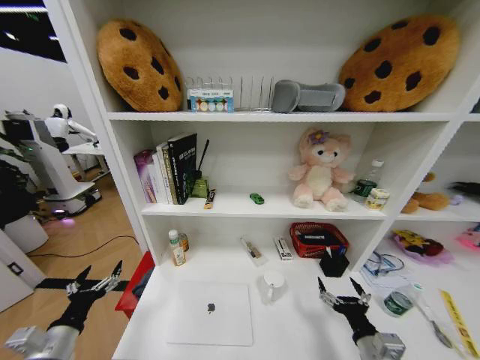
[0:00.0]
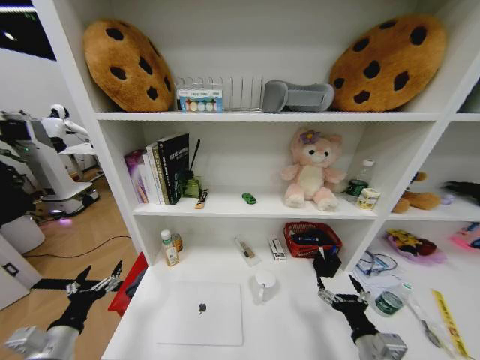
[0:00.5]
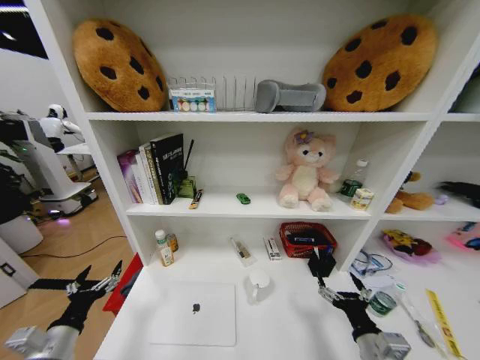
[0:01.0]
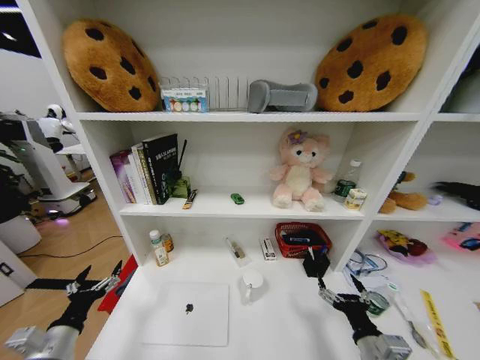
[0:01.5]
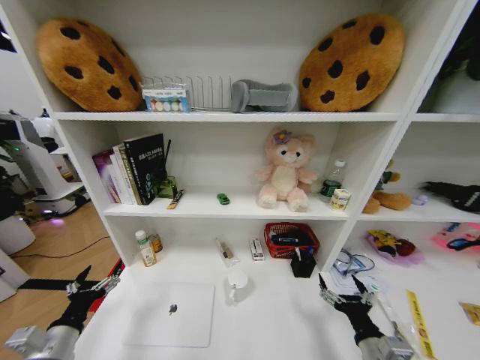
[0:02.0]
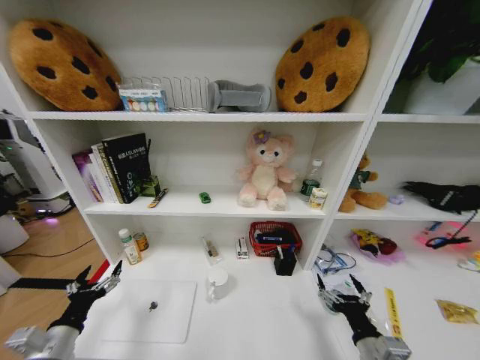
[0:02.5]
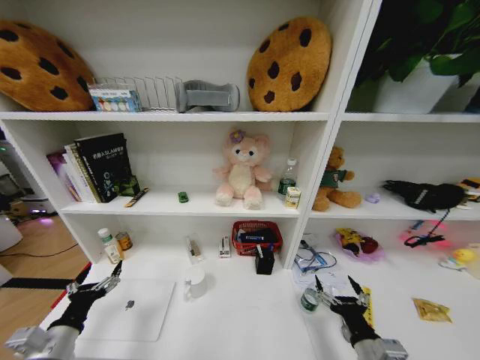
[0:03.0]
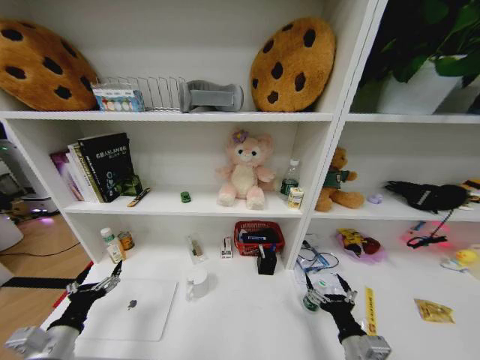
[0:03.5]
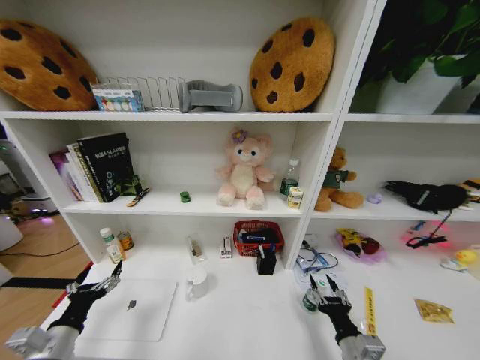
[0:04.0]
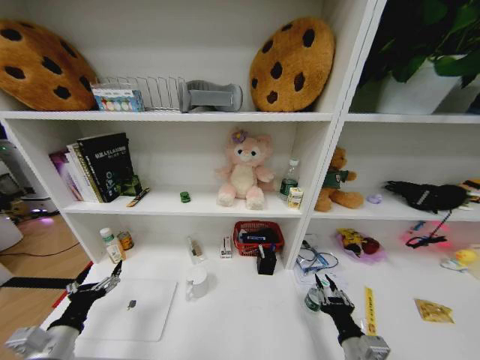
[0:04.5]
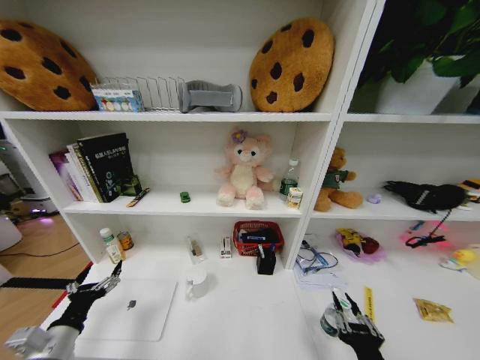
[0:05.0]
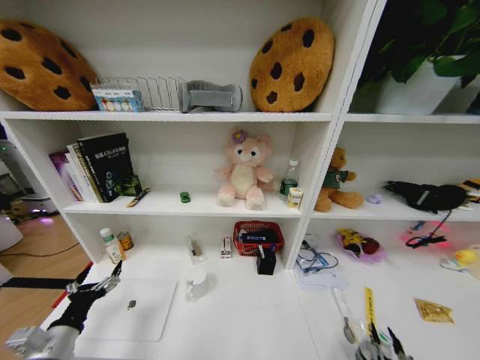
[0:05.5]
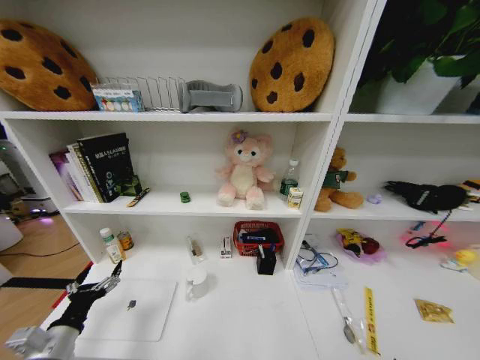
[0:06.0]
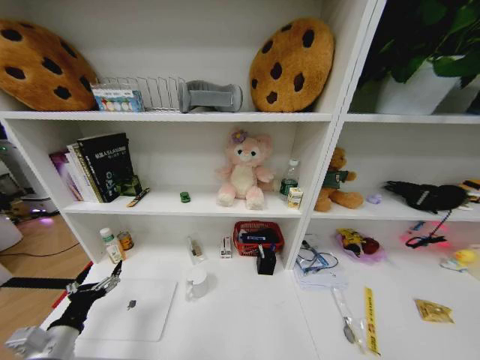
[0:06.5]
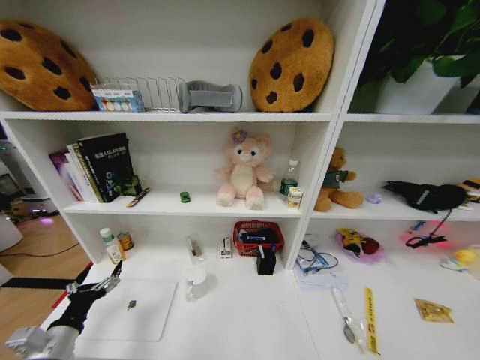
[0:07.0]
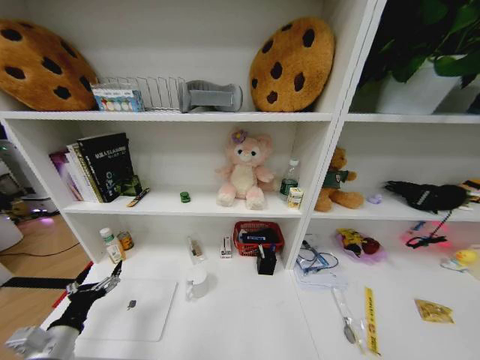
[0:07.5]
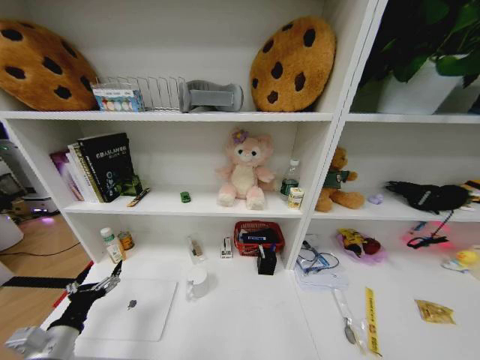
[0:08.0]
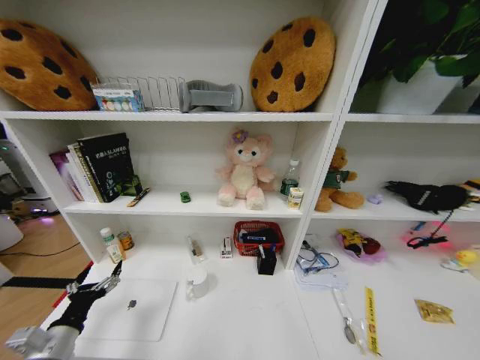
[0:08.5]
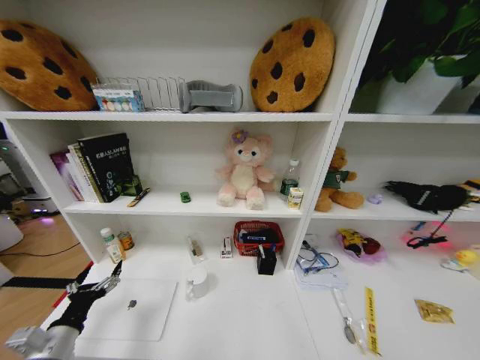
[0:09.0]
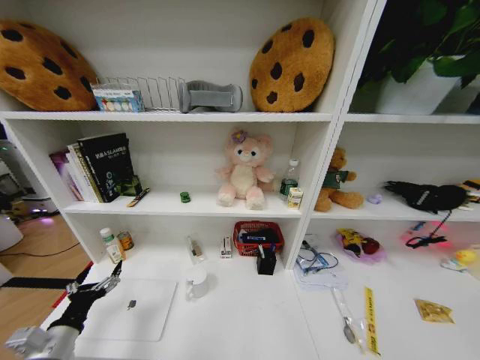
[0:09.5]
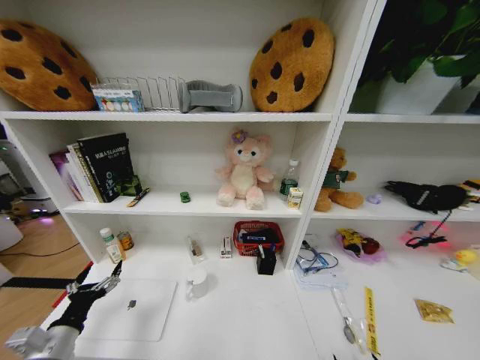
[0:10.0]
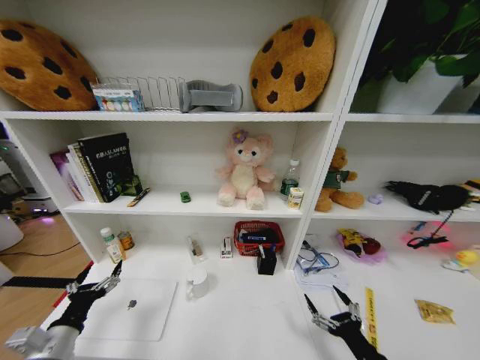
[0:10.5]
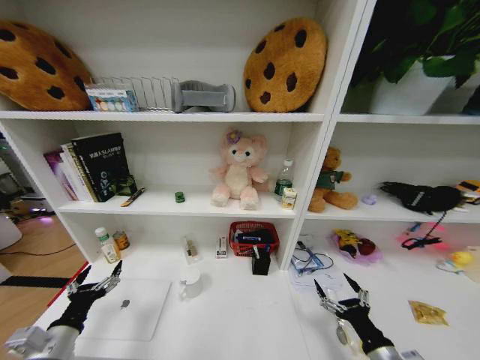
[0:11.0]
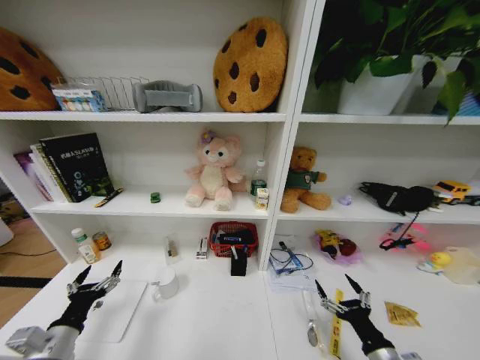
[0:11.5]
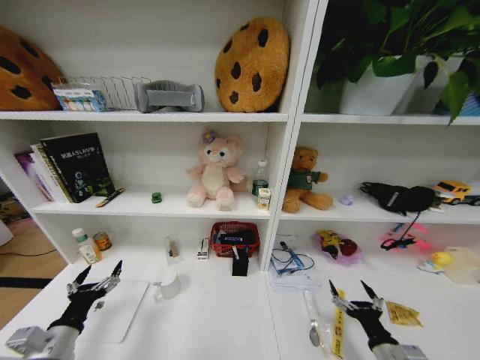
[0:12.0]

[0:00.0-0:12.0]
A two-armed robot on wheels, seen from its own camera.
Task of the whole recording: Organize the objects on the table.
0:02.0 to 0:04.0: The right gripper closes.
0:04.0 to 0:06.0: The right gripper shifts roughly 15 cm backward.
0:06.0 to 0:08.0: The right gripper travels downward by approximately 35 cm.
0:08.0 to 0:10.0: The right gripper is displaced upward by about 25 cm, and opens its fingers.
0:10.0 to 0:12.0: The right gripper travels forward by roughly 20 cm.

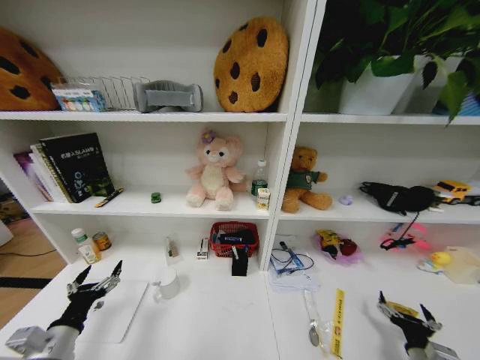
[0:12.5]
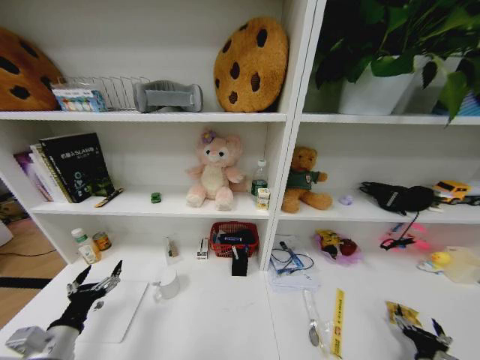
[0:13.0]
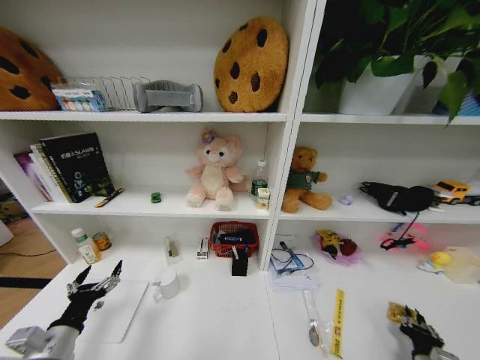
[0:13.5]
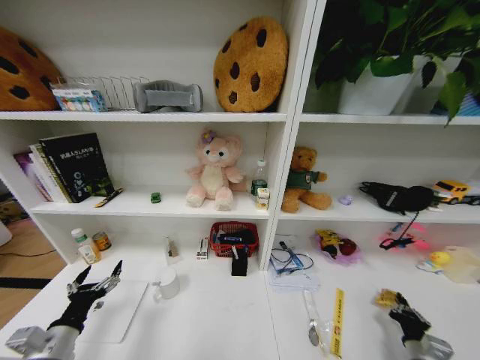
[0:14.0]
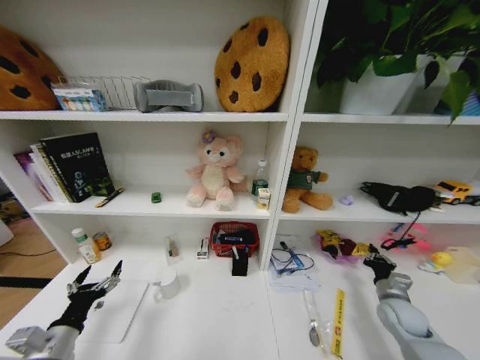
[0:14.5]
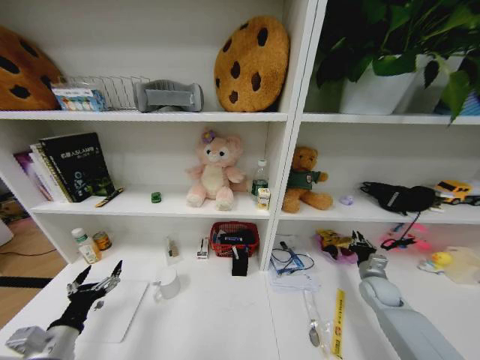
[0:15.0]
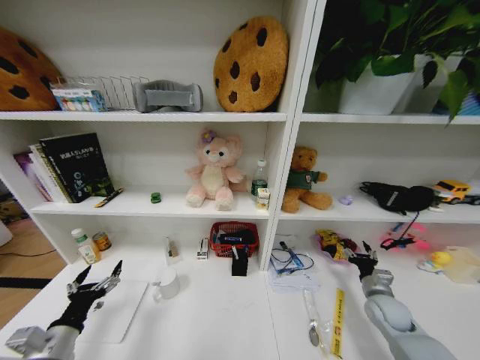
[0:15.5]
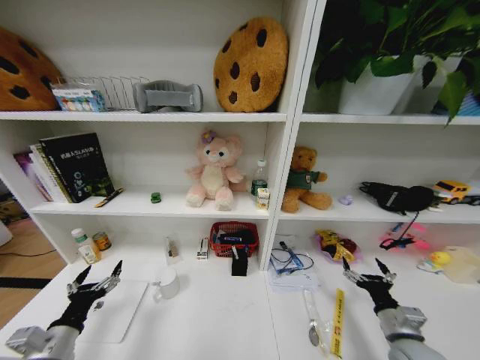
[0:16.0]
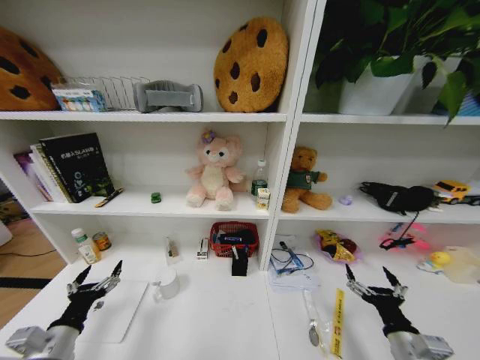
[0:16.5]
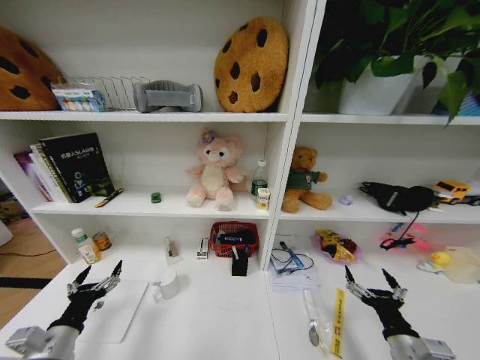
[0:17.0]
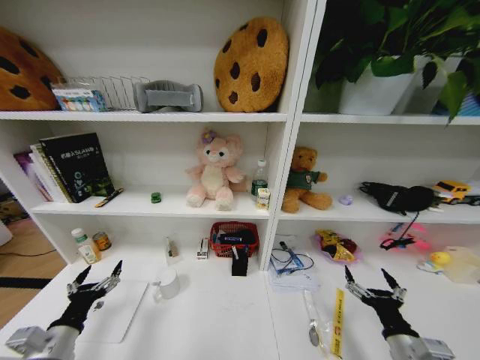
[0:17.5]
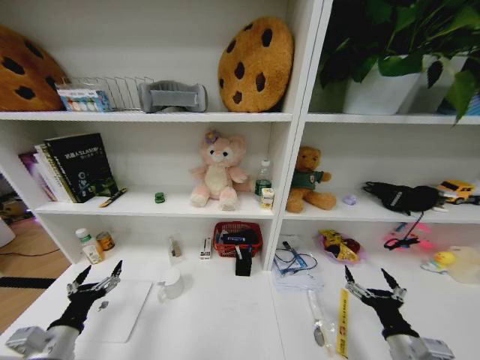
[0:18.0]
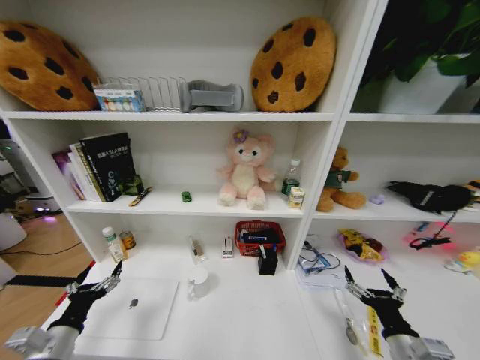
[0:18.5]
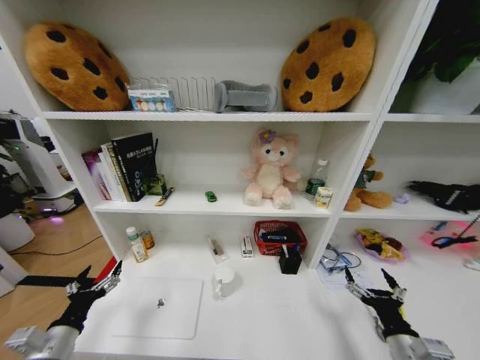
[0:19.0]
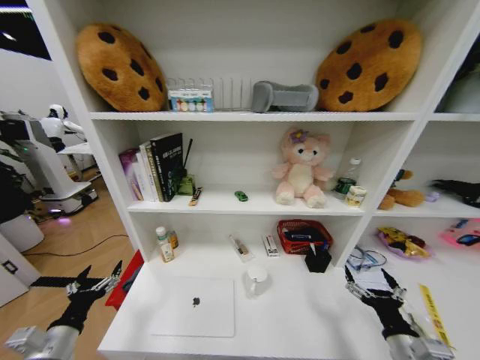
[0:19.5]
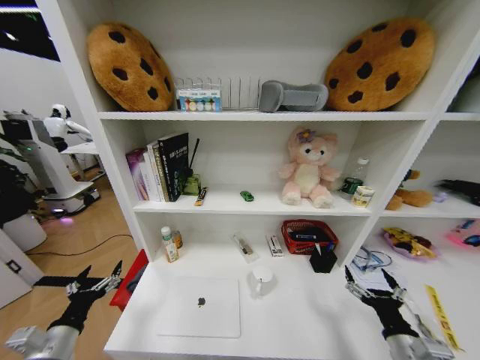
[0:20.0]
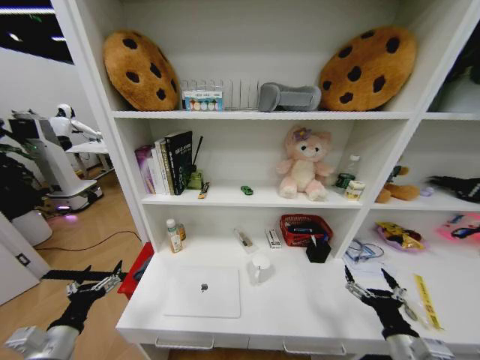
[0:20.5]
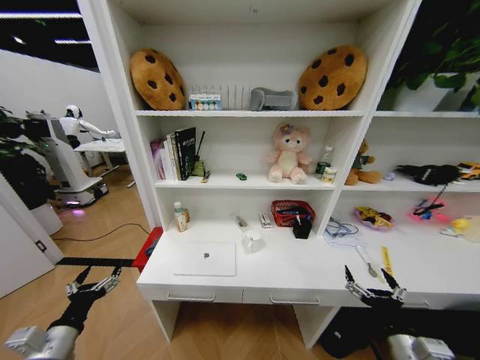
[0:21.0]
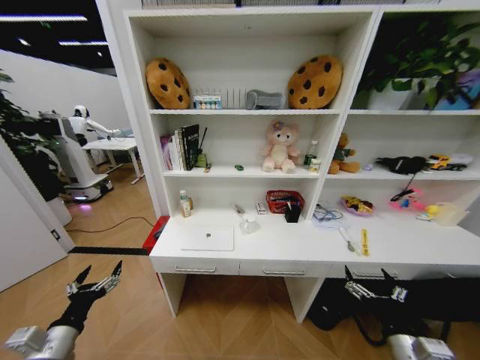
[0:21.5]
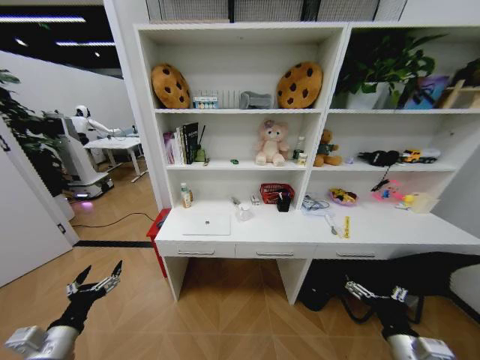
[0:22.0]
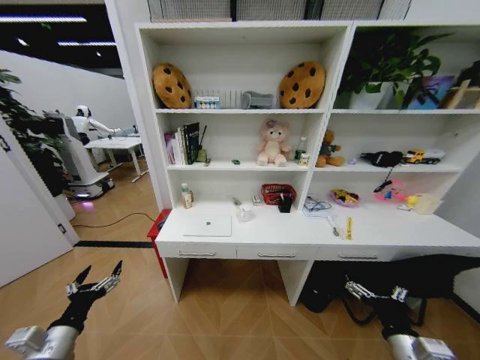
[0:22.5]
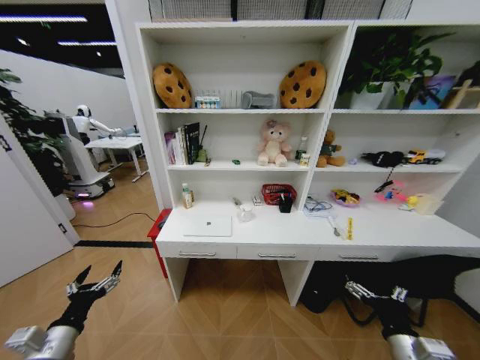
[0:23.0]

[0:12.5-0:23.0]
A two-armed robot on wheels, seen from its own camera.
Task of the whole recording: Organize the objects on the table.
0:12.5 to 0:14.5: The right gripper is displaced forward by about 15 cm, and closes its fingers.
0:14.5 to 0:16.5: The right gripper shifts approximately 20 cm backward and to the left, and opens its fingers.

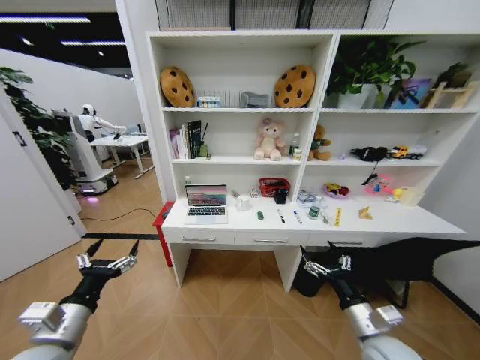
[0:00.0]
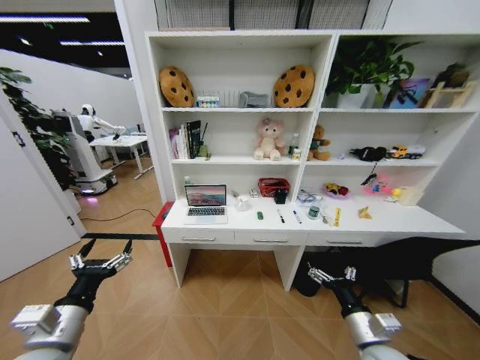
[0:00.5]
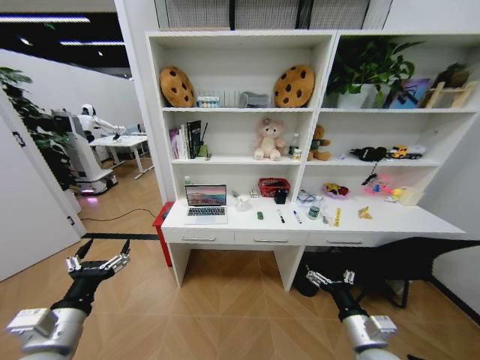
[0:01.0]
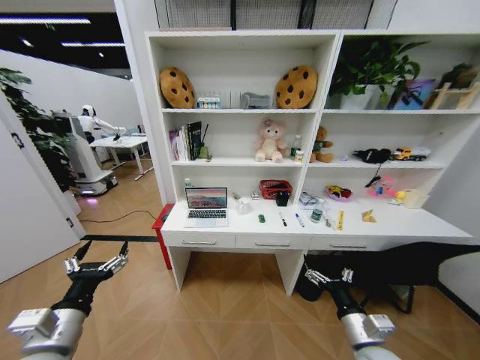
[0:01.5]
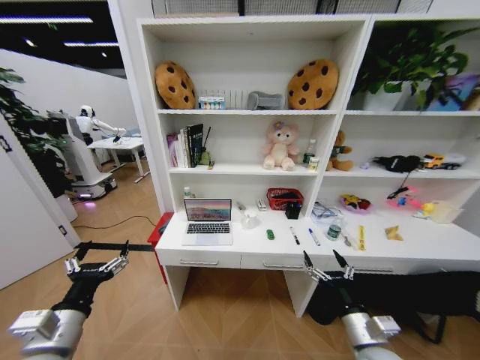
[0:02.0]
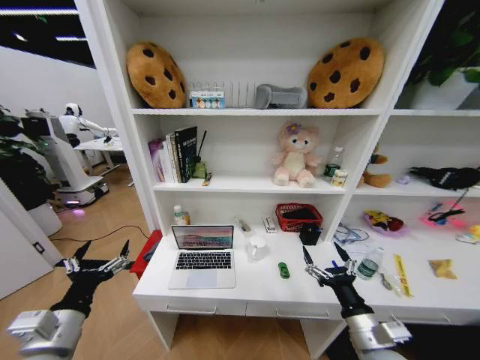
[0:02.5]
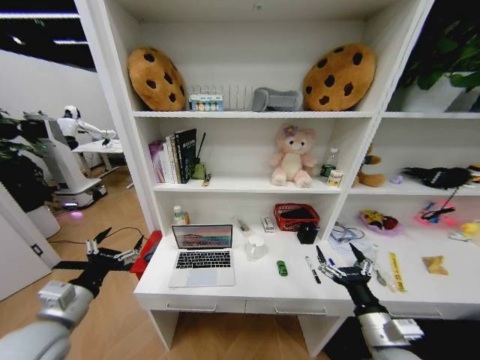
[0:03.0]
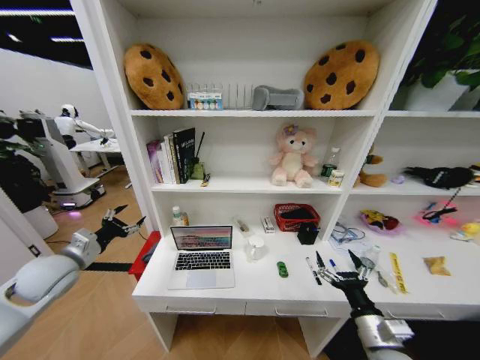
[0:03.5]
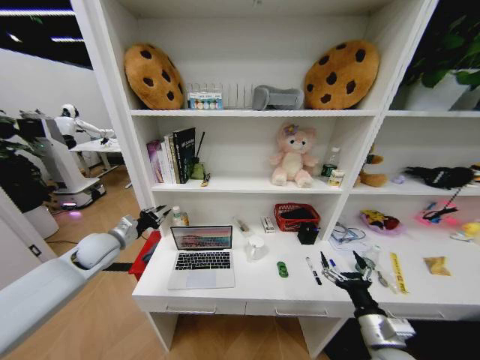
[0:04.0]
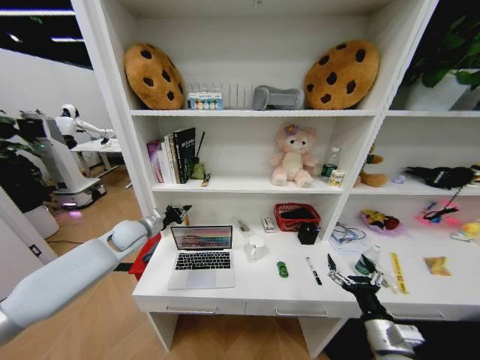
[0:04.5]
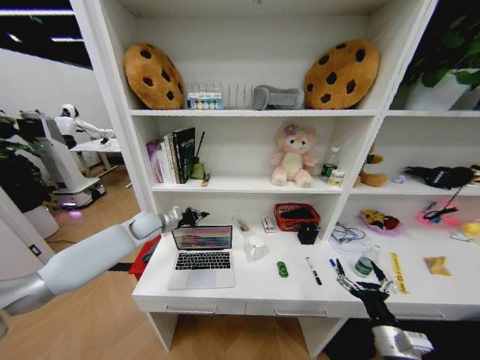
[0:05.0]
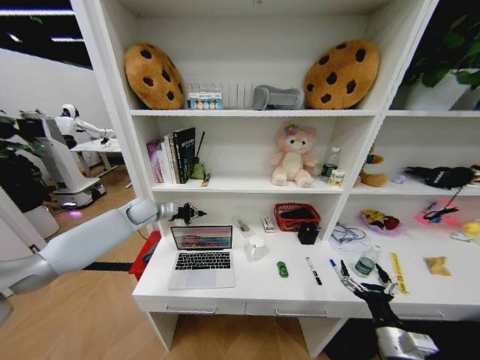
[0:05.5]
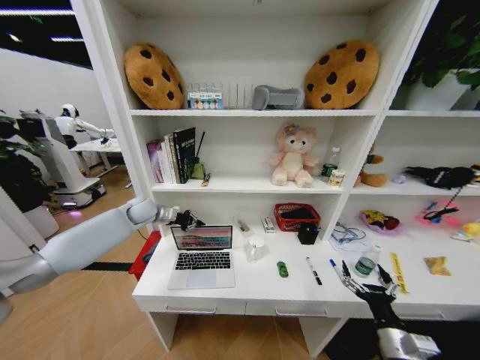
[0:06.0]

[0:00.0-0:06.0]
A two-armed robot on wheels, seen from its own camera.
Task of the whole recording: Organize the objects on the table.
0:02.0 to 0:04.0: The left gripper travels forward by roughly 25 cm, and closes up.
0:04.0 to 0:06.0: The right gripper changes place by approximately 5 cm, while the left gripper heads forward and to the right, covering approximately 15 cm.
